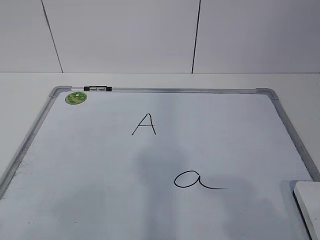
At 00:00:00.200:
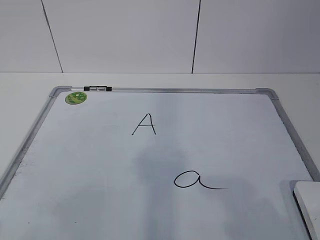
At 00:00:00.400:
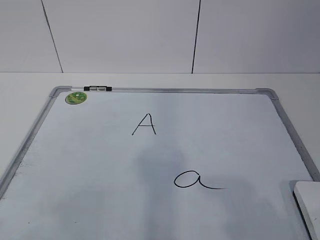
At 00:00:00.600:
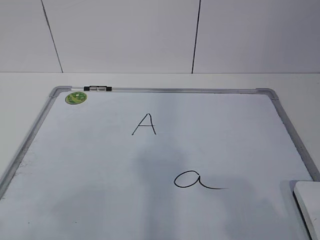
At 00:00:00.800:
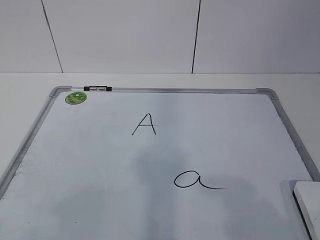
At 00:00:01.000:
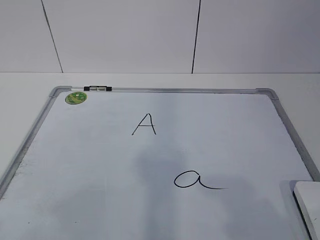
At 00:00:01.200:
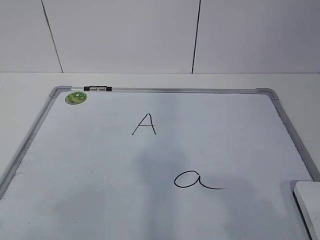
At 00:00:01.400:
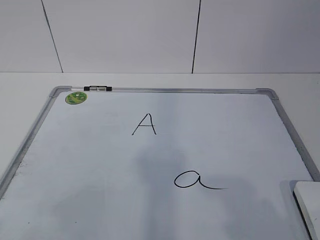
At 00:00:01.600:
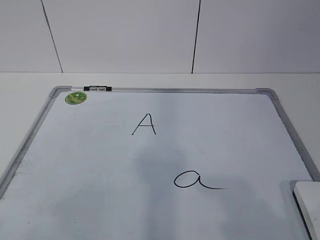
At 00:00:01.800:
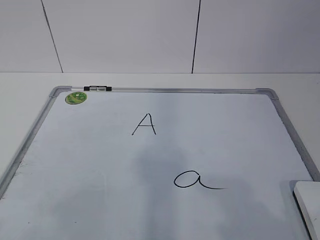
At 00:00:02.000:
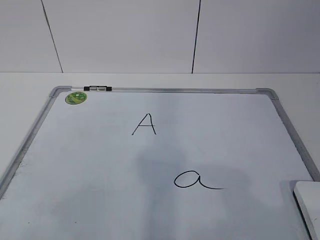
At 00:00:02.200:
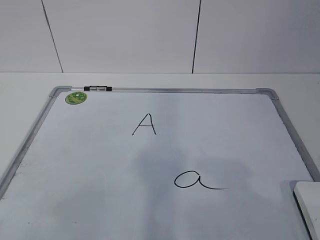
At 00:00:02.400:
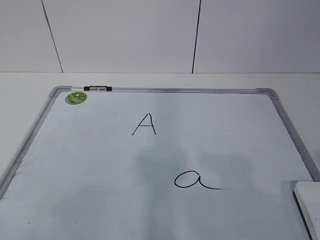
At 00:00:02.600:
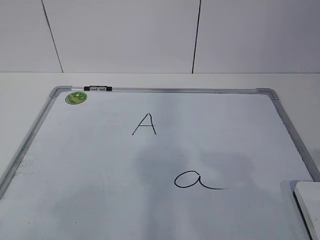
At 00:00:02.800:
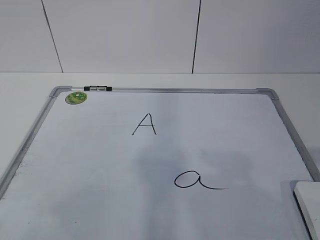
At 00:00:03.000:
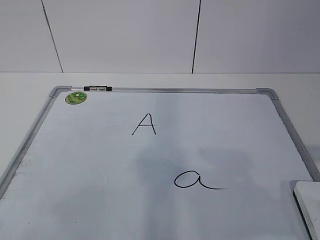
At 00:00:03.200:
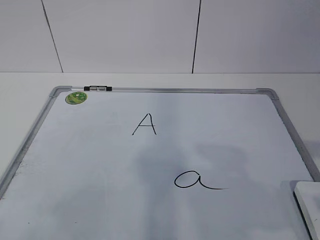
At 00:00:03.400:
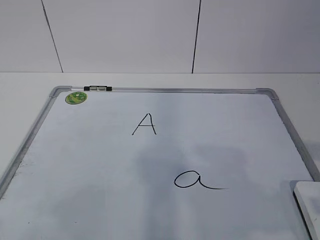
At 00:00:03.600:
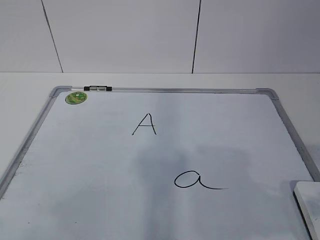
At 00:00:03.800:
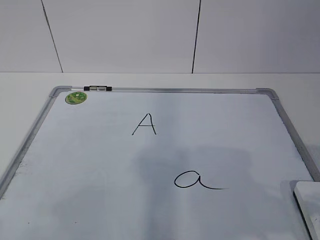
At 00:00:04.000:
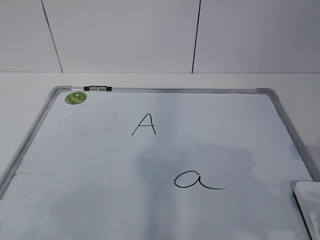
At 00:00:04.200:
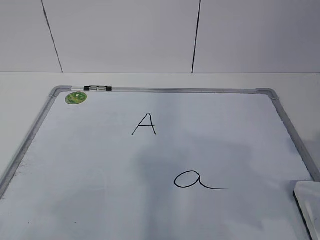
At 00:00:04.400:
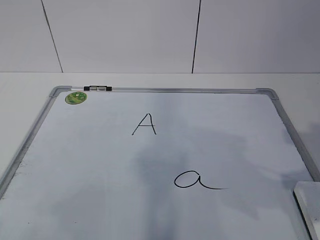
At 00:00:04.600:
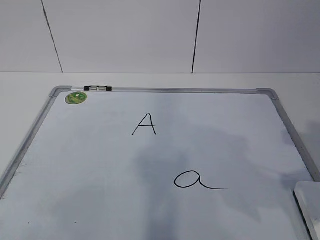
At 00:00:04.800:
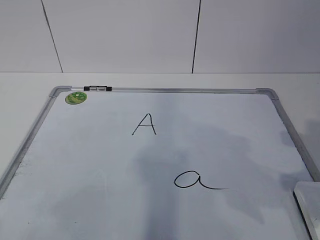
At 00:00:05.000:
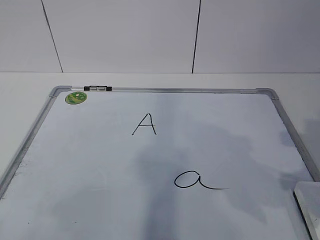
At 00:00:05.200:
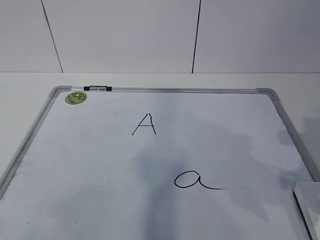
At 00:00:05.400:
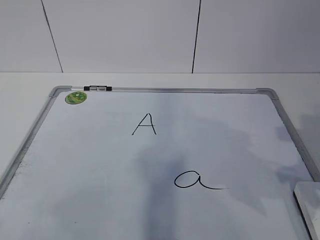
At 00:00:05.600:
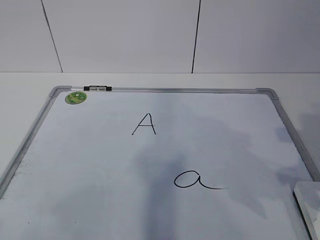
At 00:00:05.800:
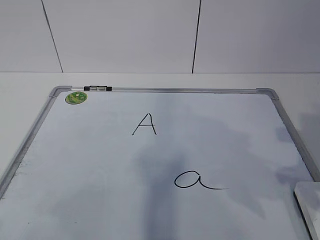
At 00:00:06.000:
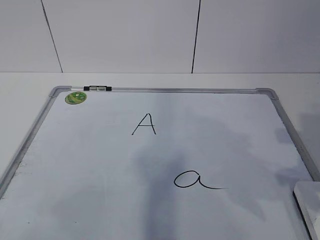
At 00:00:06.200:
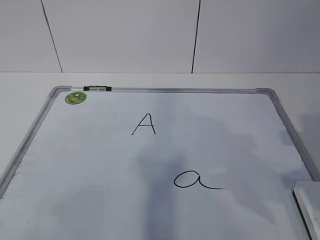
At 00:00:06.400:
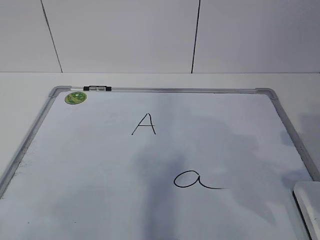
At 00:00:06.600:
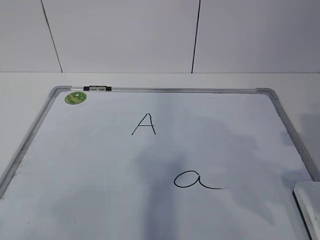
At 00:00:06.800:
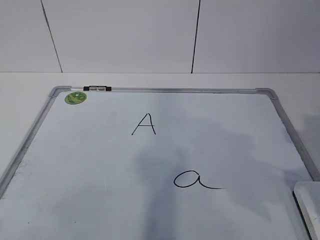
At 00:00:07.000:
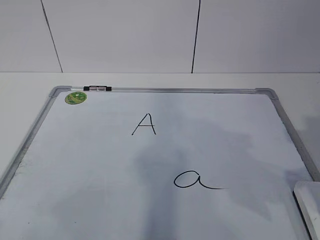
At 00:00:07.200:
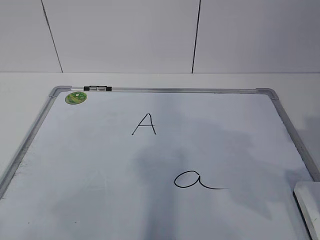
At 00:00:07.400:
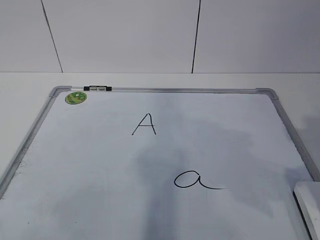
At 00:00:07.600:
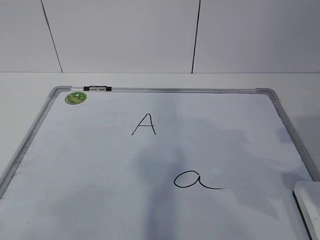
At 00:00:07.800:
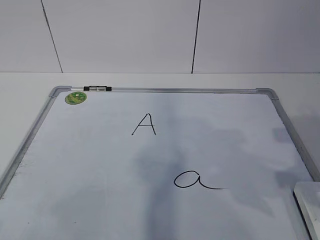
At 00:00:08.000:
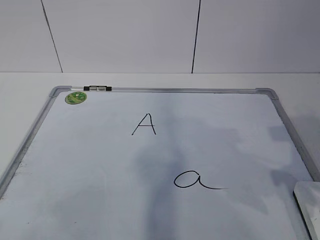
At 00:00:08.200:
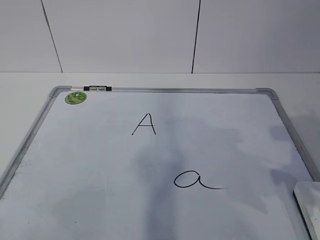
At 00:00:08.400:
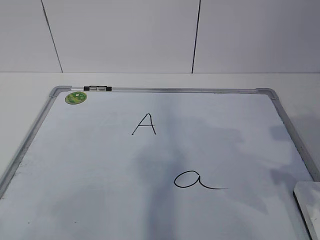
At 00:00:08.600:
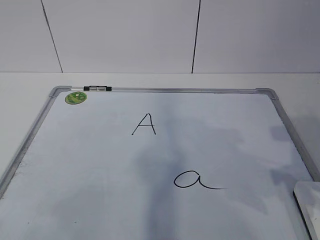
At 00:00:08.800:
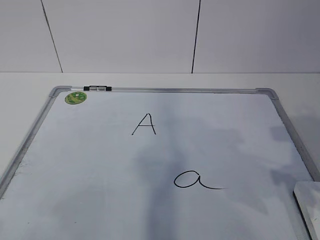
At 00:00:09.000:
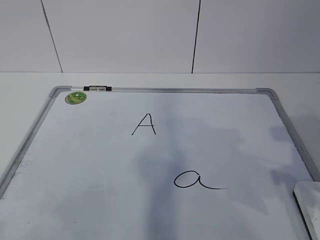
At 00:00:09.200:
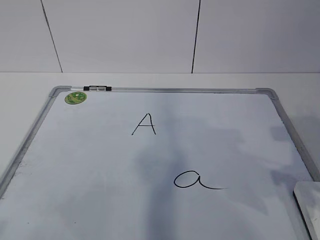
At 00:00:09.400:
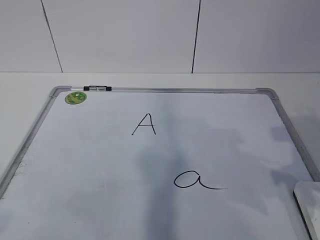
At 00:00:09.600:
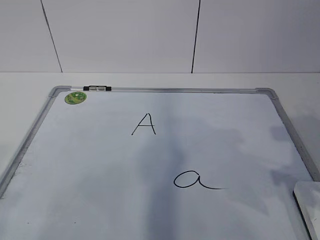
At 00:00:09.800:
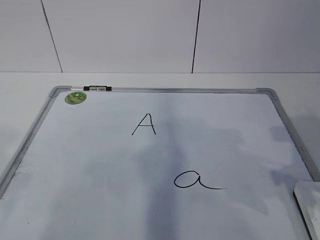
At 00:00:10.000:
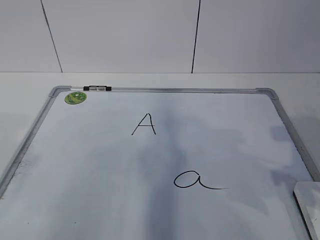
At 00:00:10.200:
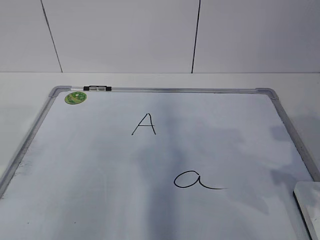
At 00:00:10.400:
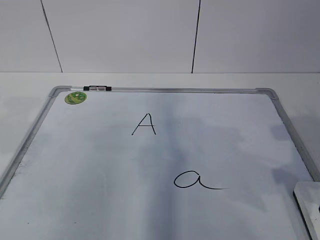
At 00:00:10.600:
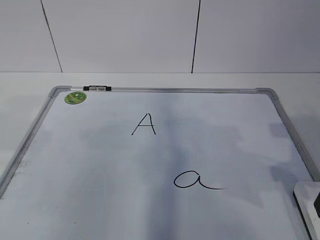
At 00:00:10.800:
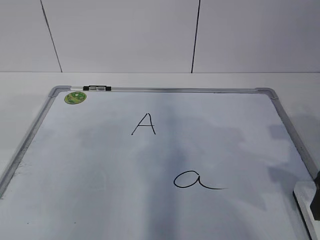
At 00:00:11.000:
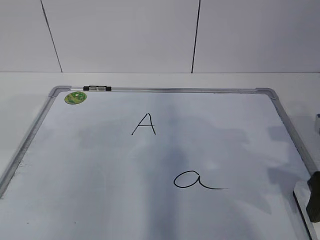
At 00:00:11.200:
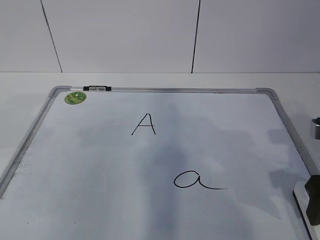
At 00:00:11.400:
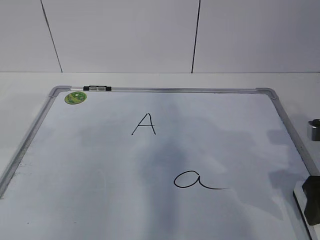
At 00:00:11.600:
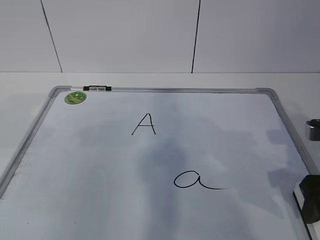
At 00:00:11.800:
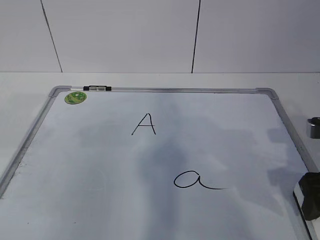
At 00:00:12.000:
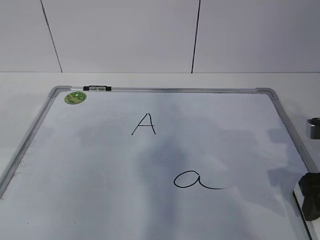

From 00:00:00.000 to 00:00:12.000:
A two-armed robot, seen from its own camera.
Task of the whole recording: pick up the eraser on the blackboard and erase the letter "a".
From 00:00:03.000 to 00:00:04.400: The right gripper goes roughly 5 cm forward.
From 00:00:10.400 to 00:00:12.000: The right gripper changes place by approximately 5 cm.

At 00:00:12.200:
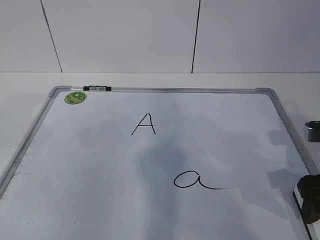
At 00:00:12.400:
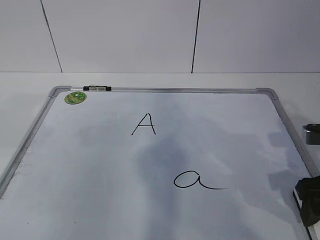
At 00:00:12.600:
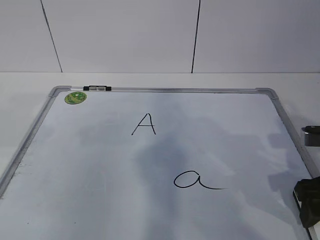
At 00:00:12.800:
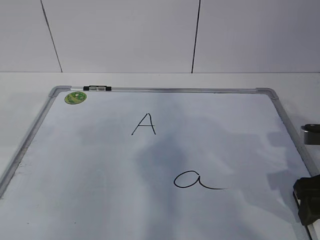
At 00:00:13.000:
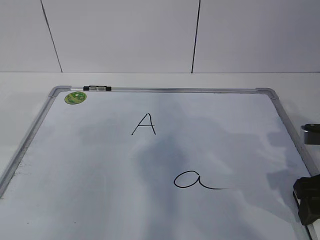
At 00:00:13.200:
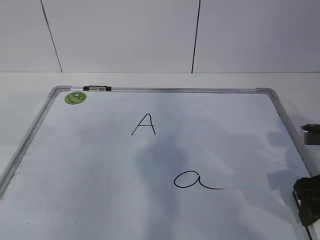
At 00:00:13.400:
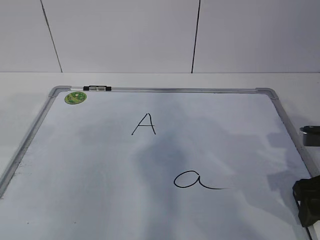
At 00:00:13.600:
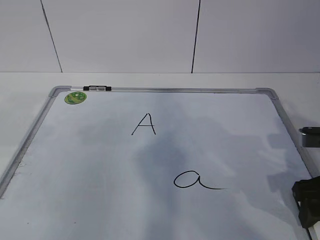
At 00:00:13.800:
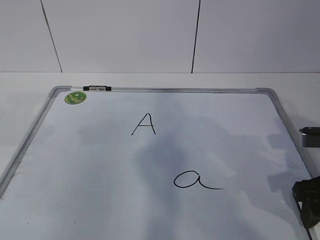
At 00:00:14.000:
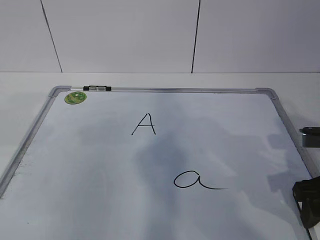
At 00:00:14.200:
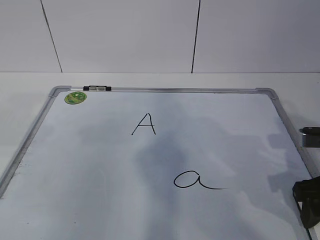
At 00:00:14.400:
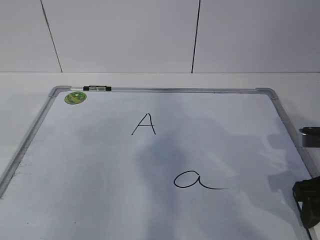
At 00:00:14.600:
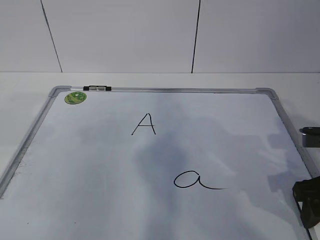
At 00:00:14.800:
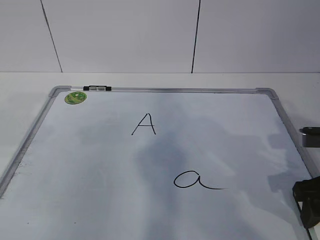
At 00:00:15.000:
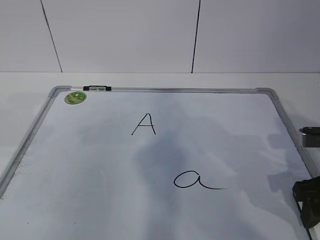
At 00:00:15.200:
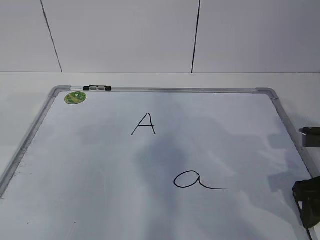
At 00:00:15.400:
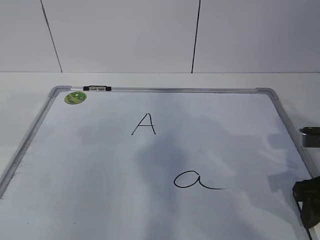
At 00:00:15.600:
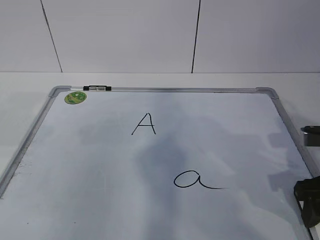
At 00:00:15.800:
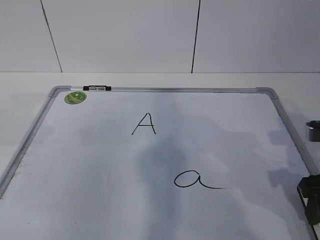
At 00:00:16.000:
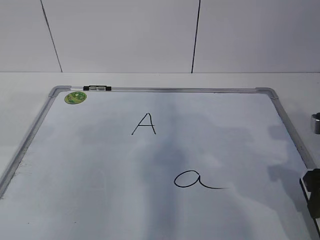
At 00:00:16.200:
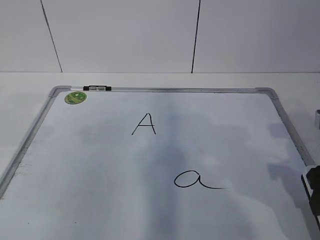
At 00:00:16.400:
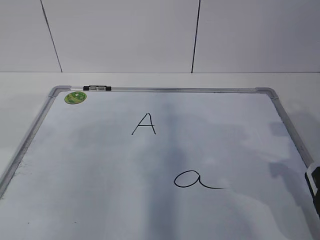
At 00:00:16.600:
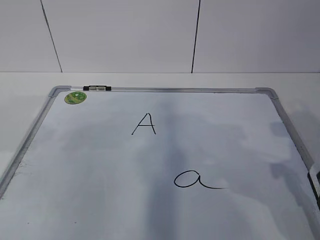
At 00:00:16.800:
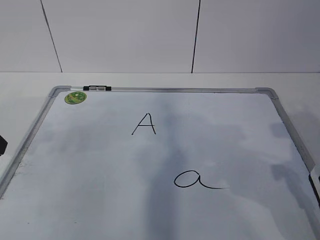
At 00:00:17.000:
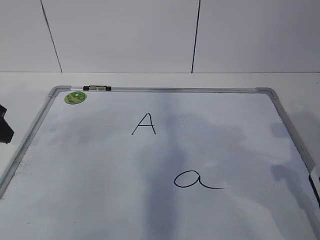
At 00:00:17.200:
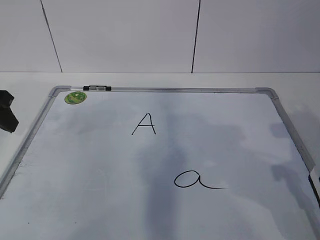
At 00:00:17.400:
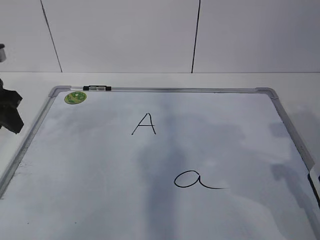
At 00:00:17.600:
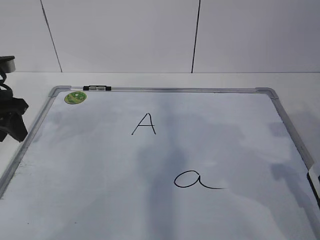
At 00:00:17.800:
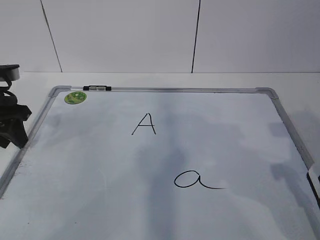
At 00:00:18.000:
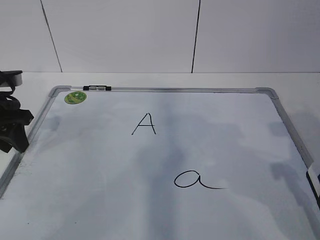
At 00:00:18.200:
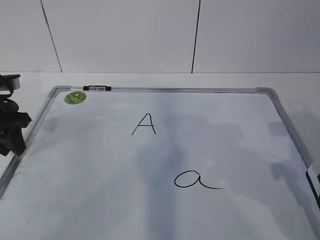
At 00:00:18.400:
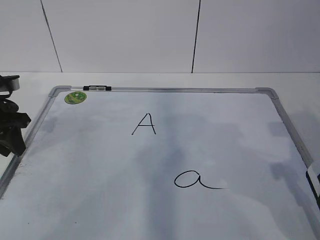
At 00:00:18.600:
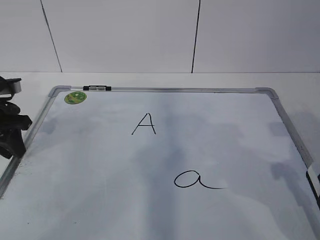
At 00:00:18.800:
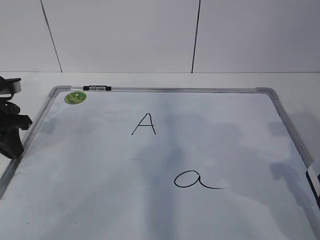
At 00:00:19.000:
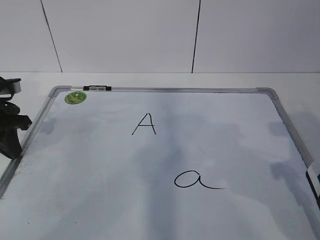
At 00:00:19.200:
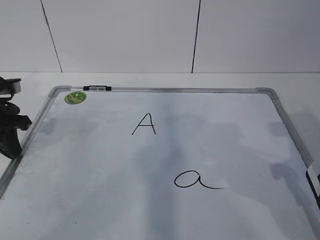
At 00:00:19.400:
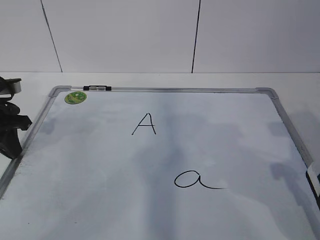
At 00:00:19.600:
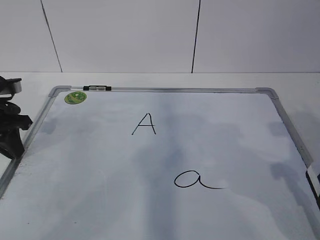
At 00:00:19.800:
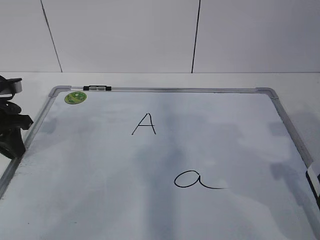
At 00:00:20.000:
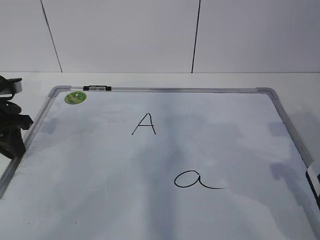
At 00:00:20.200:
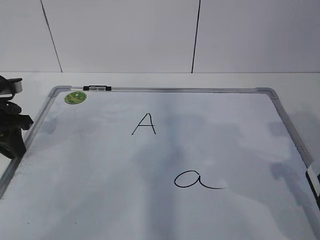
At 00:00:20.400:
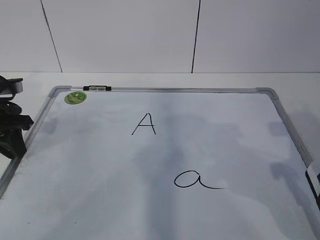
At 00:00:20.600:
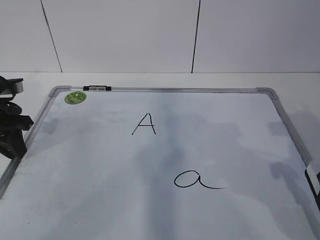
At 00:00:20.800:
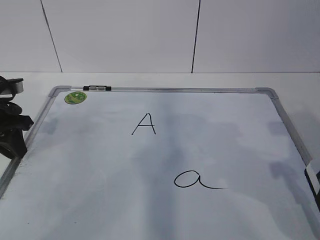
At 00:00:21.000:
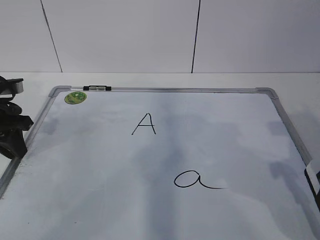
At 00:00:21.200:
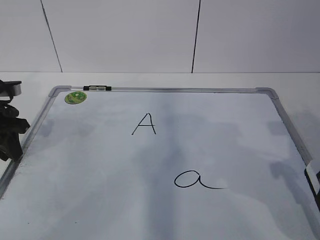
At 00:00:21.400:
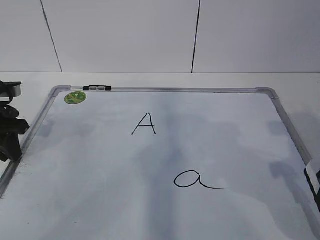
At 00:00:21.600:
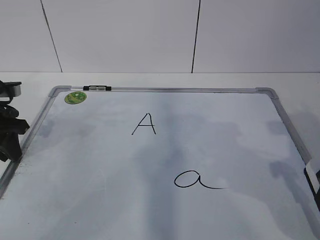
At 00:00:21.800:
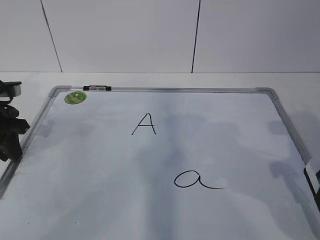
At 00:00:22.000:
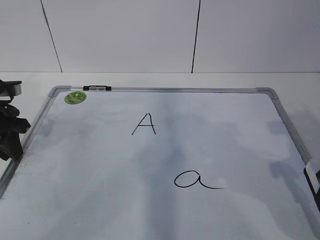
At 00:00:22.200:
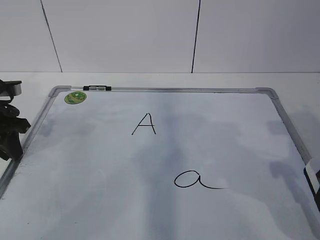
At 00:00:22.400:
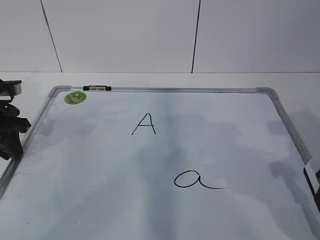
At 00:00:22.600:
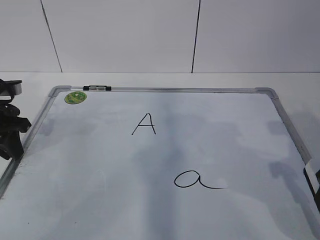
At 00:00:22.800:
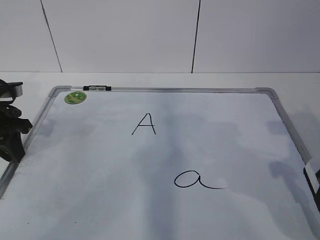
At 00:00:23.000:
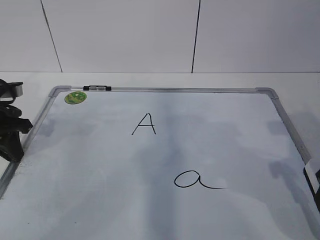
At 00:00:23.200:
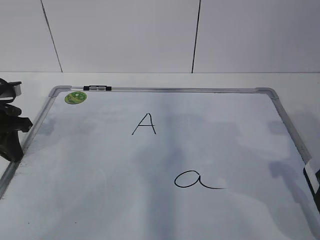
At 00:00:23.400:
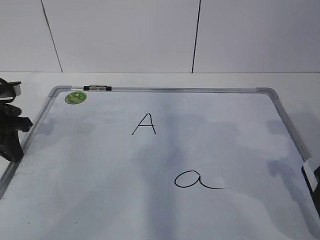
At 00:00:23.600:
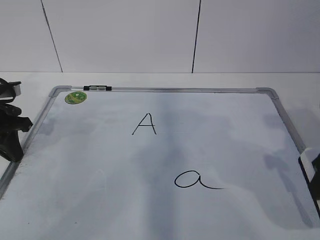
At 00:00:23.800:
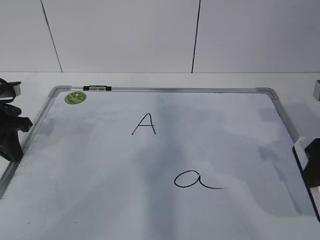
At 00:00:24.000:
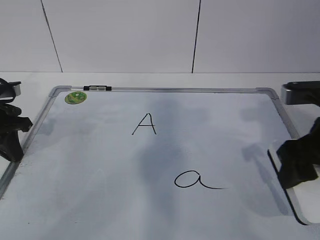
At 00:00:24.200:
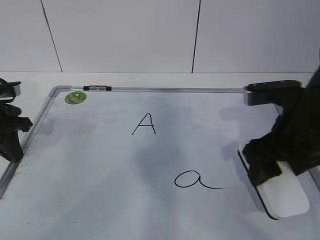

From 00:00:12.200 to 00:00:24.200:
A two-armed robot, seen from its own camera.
Task of the whole recording: pick up the eraser on the blackboard and erase the letter "a".
Step, from 00:00:13.000 to 00:00:19.000: Hold the drawing board steady with your left hand.
From 00:00:12.200 to 00:00:13.800: The right gripper closes its fingers.
From 00:00:13.800 to 00:00:15.200: The two grippers keep their place.
From 00:00:15.200 to 00:00:16.600: The right gripper goes about 5 cm upward.
From 00:00:16.600 to 00:00:18.200: The left gripper is displaced forward and downward by approximately 15 cm, and closes its fingers.
From 00:00:18.200 to 00:00:22.600: The two grippers keep their place.
From 00:00:22.600 to 00:00:24.200: The right gripper shifts about 10 cm to the left and forward.
